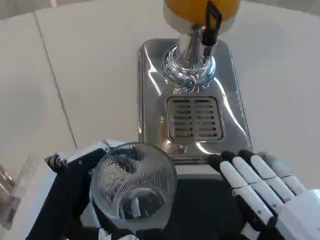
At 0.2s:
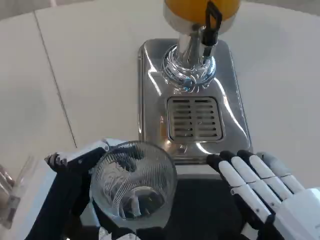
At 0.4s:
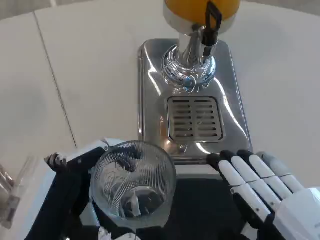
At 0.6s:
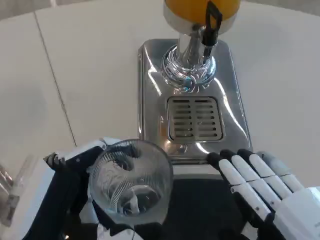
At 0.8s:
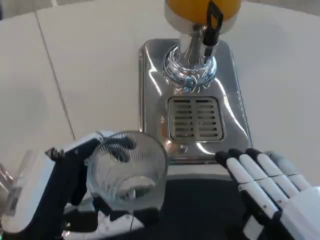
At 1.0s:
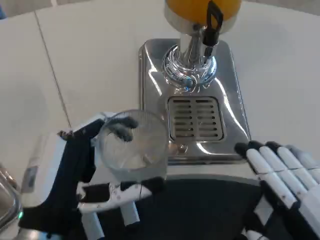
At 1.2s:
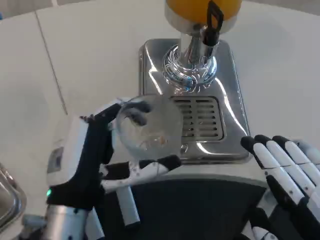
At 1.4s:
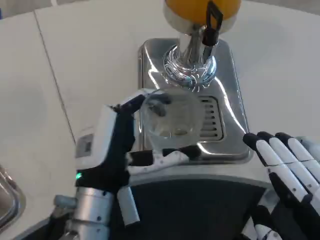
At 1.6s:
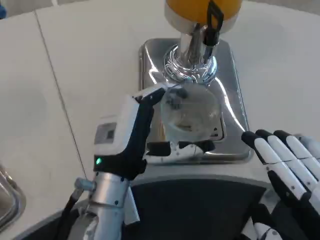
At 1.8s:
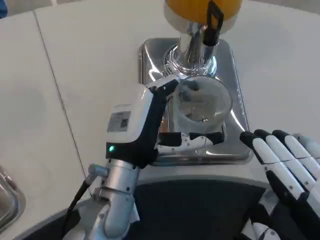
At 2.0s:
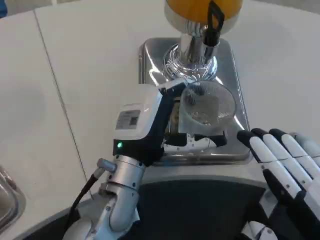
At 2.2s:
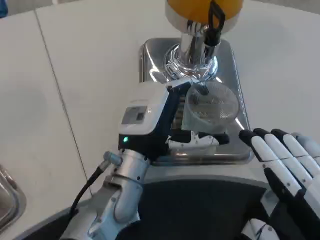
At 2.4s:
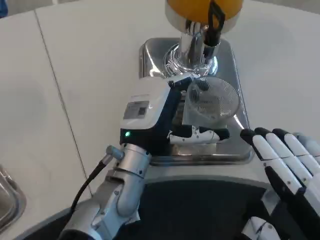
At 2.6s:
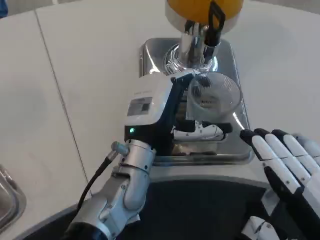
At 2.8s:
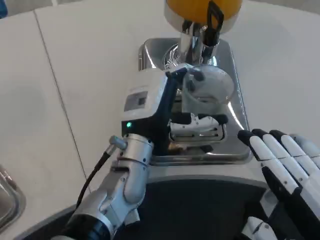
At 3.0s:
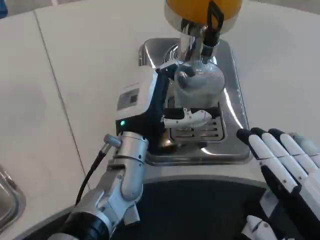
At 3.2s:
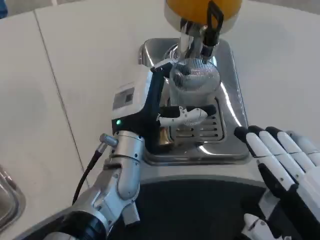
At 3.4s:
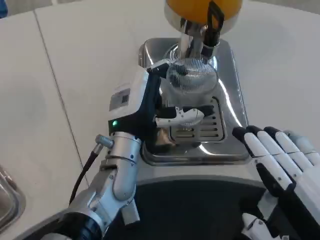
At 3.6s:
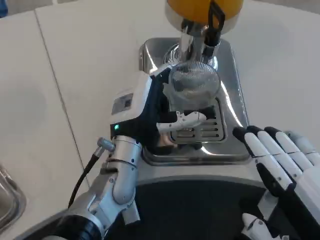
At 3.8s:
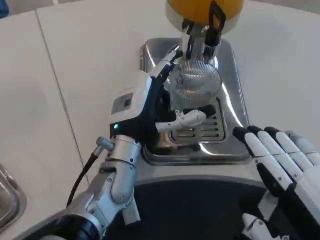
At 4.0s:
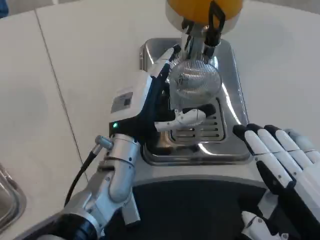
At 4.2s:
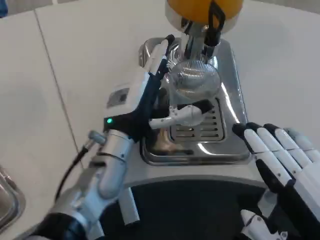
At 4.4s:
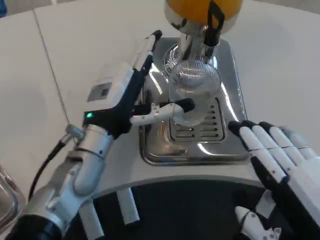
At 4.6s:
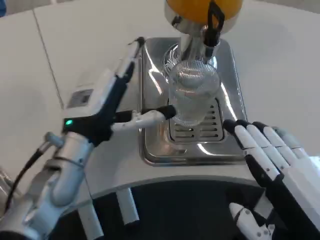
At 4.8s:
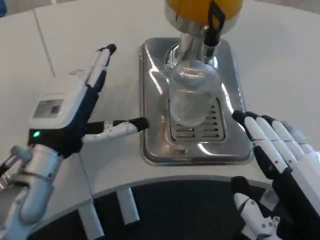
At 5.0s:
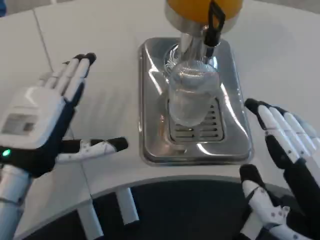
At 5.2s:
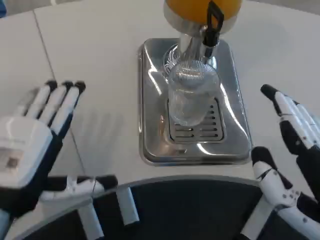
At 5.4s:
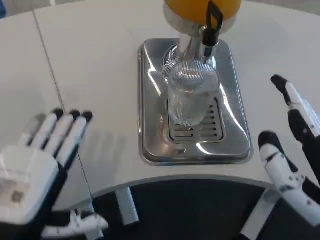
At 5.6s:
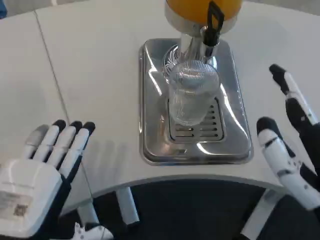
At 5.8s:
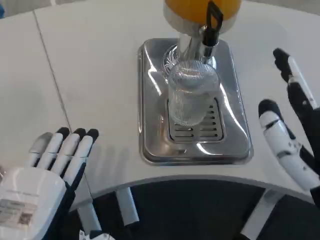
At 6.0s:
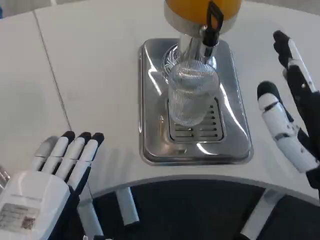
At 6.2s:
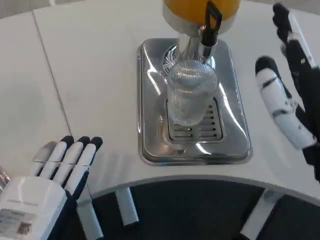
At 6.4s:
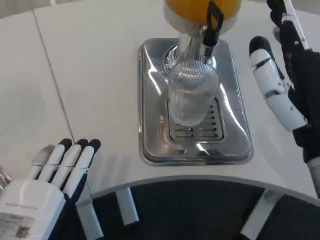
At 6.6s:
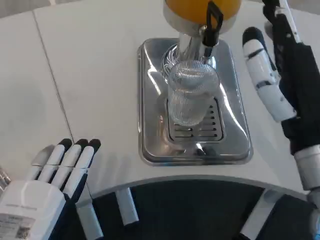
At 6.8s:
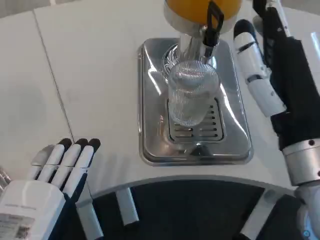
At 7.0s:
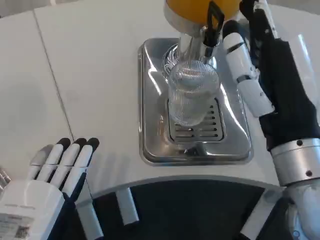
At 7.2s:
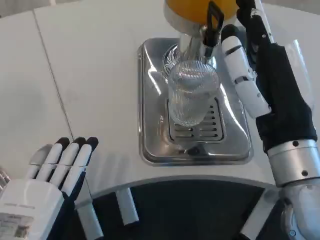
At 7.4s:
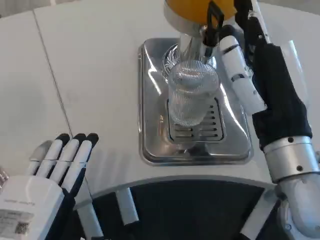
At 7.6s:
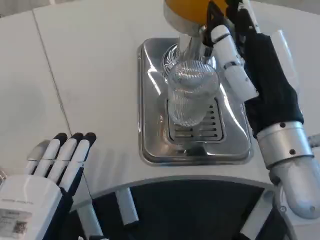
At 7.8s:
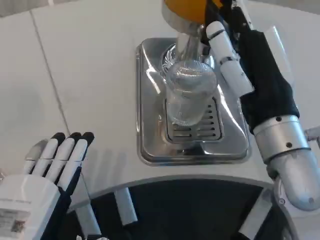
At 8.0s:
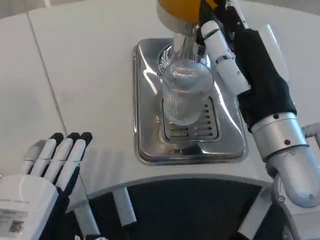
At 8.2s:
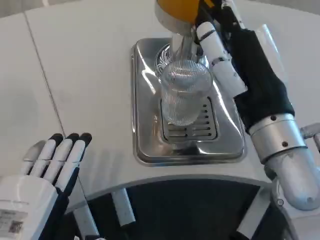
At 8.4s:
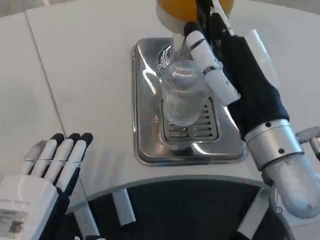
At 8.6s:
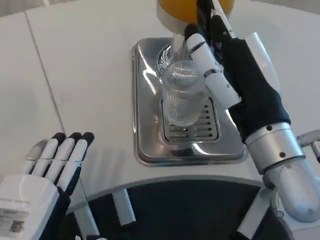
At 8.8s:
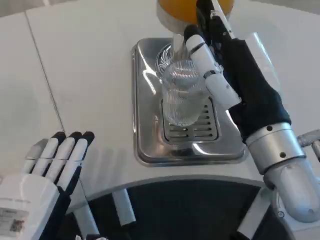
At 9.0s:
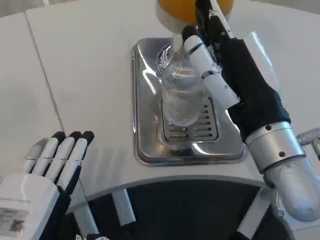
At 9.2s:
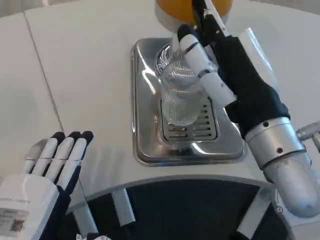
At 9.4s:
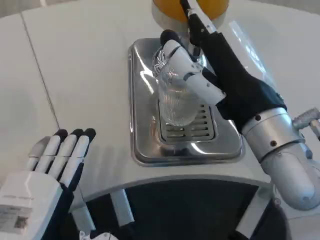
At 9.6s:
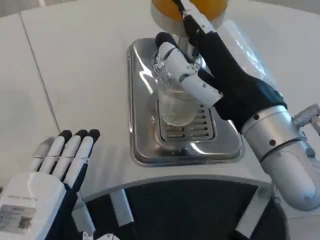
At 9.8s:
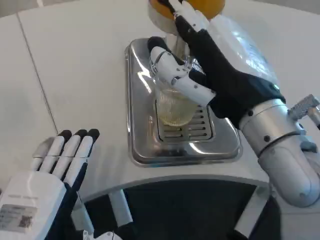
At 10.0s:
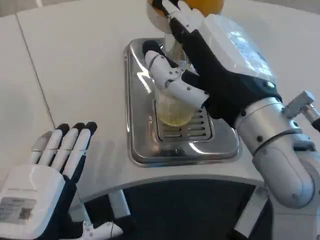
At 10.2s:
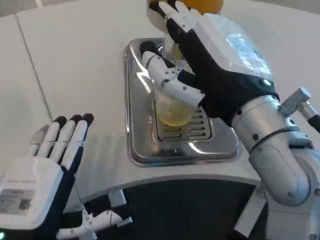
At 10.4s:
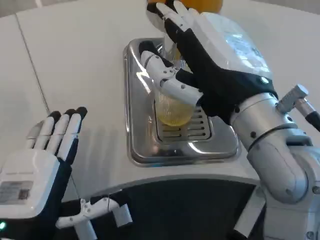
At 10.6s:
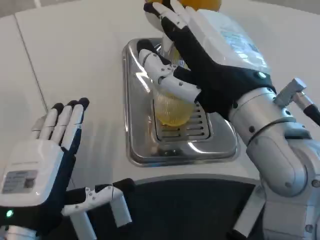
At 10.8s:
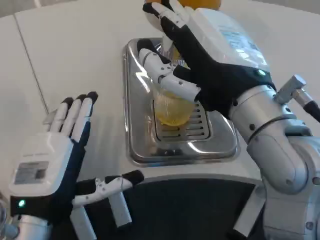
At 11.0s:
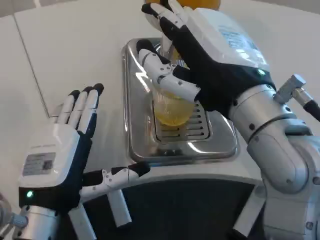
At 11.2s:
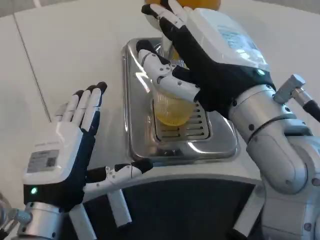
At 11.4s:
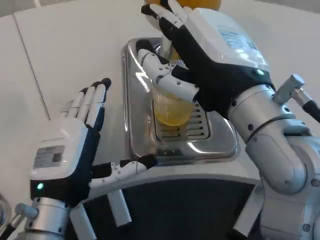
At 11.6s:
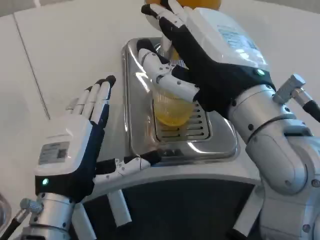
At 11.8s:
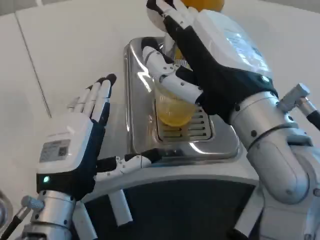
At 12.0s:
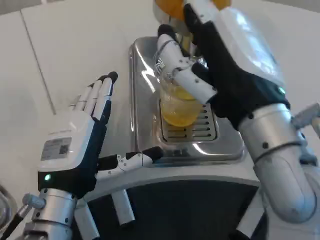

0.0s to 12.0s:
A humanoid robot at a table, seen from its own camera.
Task of the whole recording: Grasp the cup under the faucet to collect the drink, then remove the cup.
0.0s to 1.6s: The left hand goes some 15 cm forward and to the right.
1.6s to 3.0s: The left hand shifts roughly 5 cm forward.
3.0s to 4.4s: The left hand travels to the left by some 5 cm.
4.4s to 6.0s: The right hand is displaced forward by roughly 5 cm; the left hand travels backward by approximately 20 cm.
6.0s to 7.6s: The right hand travels forward and to the left by about 10 cm.
9.0s to 10.4s: The right hand changes place by roughly 5 cm.
10.4s to 12.0s: The left hand travels forward by approximately 5 cm.

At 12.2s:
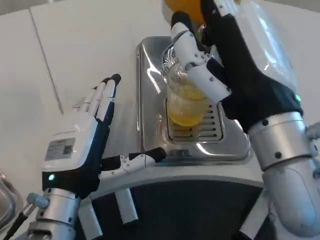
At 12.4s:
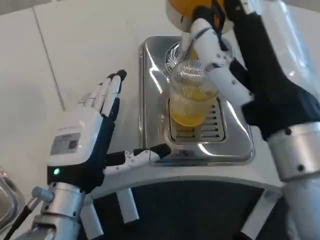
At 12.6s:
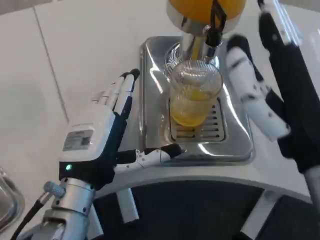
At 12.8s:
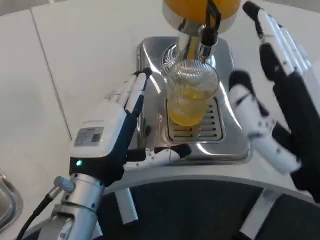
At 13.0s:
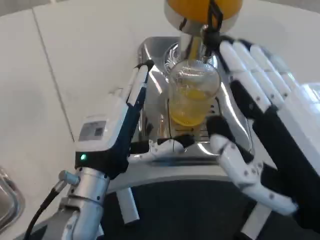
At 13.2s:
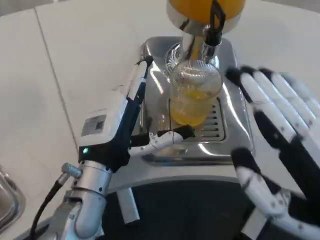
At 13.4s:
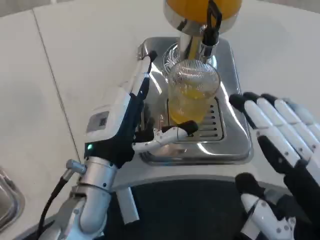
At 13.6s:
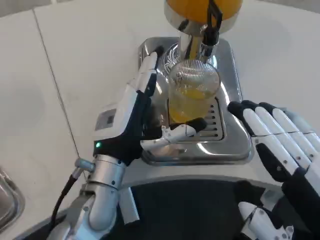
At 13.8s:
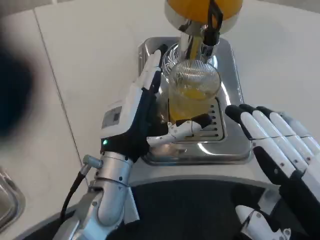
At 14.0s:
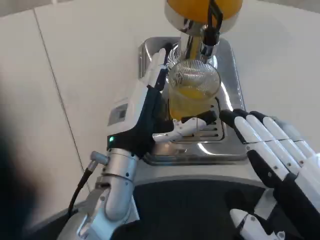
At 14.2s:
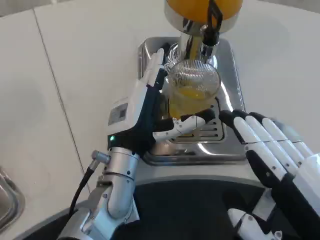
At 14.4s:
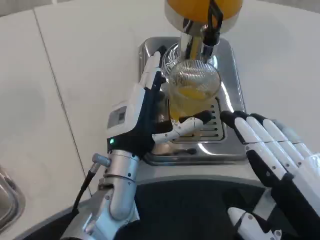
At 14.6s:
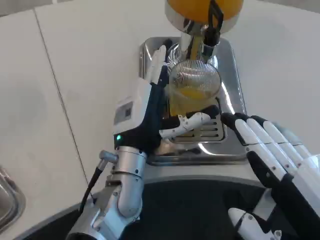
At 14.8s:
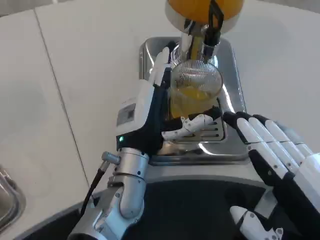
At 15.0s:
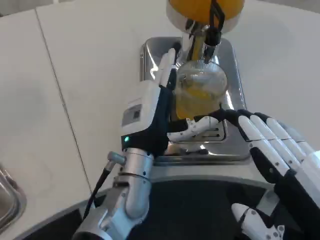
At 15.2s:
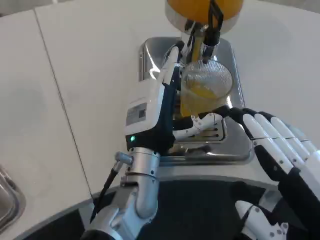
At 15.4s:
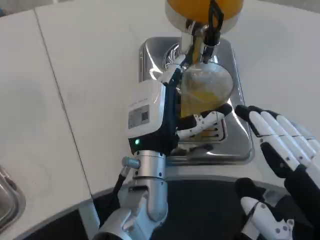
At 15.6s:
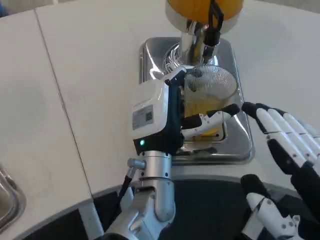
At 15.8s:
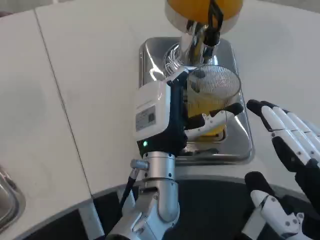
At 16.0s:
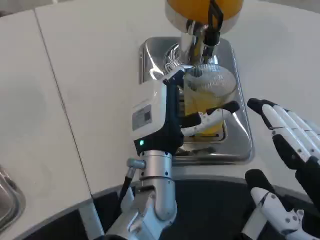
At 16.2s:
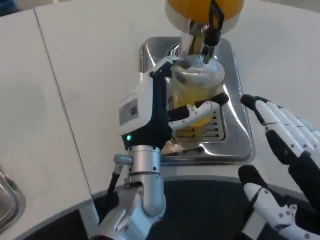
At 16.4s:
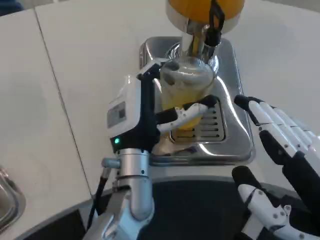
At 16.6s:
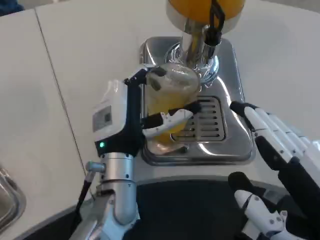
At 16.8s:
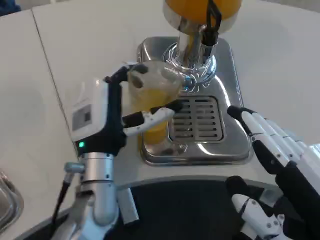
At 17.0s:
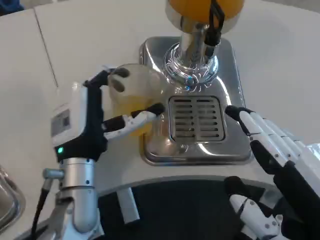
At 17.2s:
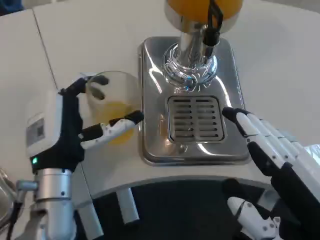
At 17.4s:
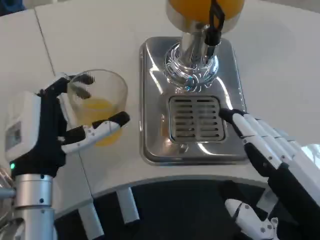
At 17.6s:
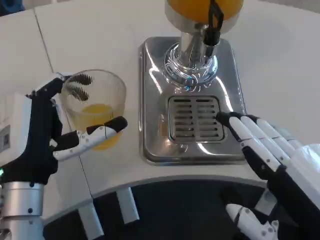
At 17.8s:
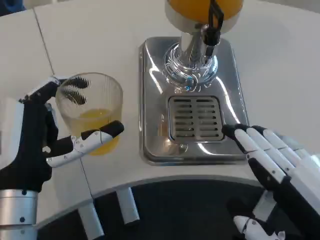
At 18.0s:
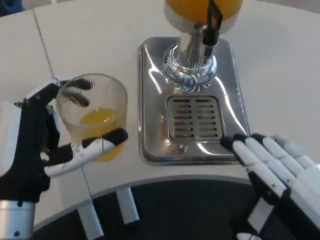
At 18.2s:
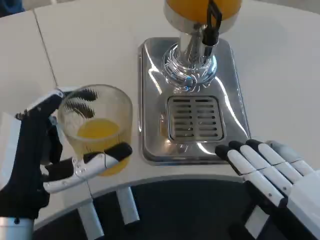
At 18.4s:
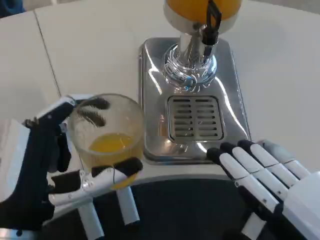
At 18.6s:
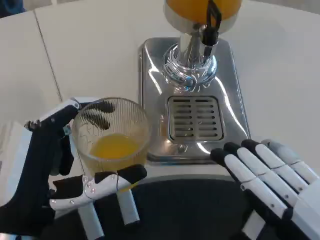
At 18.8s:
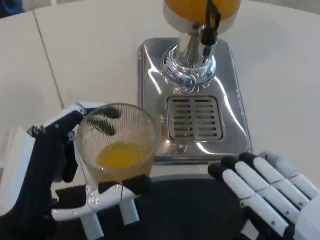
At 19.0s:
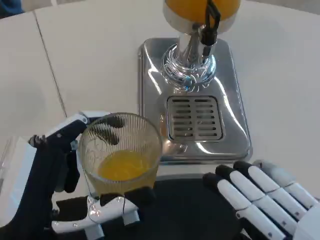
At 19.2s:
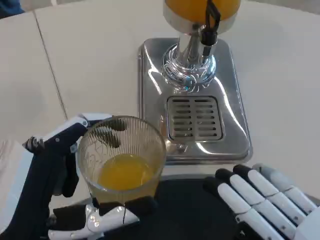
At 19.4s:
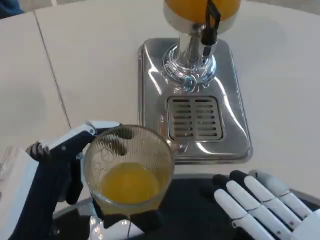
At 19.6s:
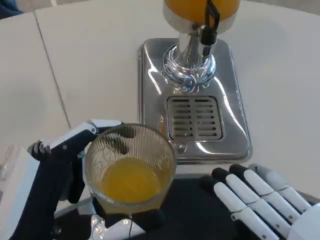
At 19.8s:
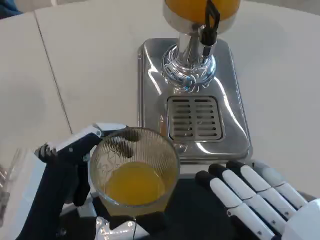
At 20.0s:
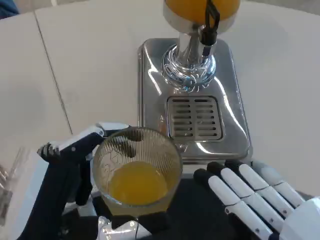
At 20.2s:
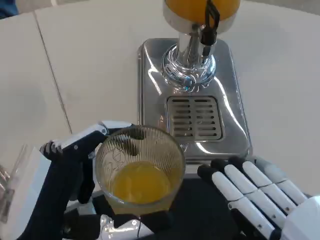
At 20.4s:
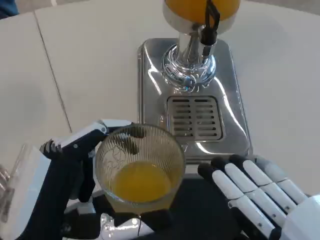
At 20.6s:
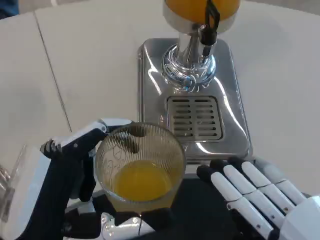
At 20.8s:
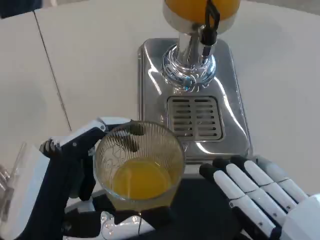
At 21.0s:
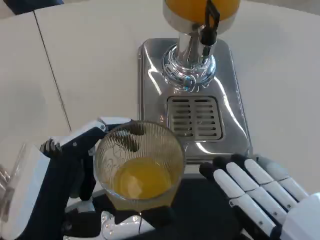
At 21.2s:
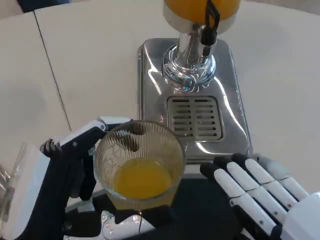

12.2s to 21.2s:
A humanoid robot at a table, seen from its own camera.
Task of the whole recording: Grasp the cup under the faucet to collect the drink, then remove the cup.
12.2s to 13.8s: The left hand shifts about 10 cm forward and to the right; the right hand shifts some 15 cm backward, to the right and downward.
13.8s to 15.2s: The left hand shifts roughly 5 cm to the right.
16.6s to 18.2s: The left hand shifts approximately 15 cm backward and to the left.
18.2s to 19.8s: The left hand heads backward, covering approximately 5 cm.
19.8s to 21.2s: The two hands keep their place.

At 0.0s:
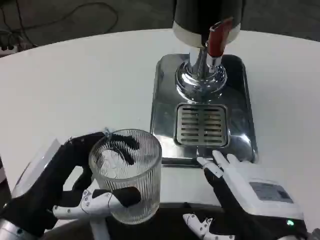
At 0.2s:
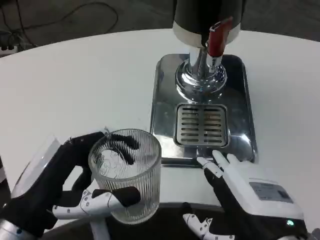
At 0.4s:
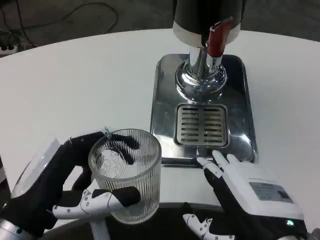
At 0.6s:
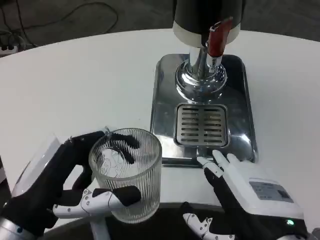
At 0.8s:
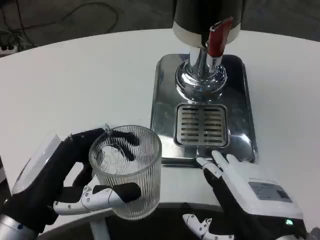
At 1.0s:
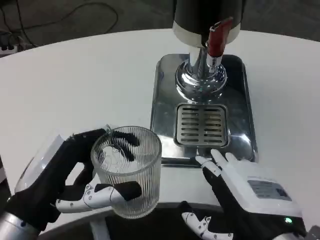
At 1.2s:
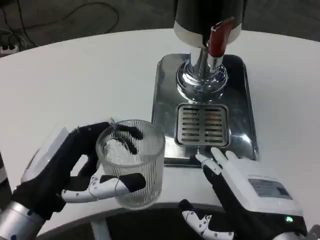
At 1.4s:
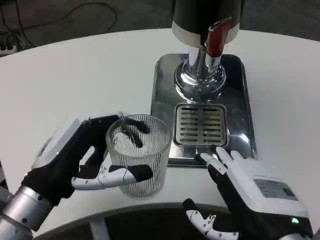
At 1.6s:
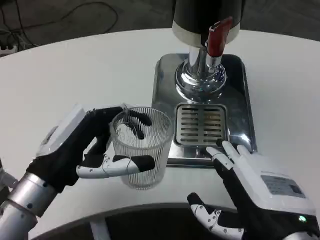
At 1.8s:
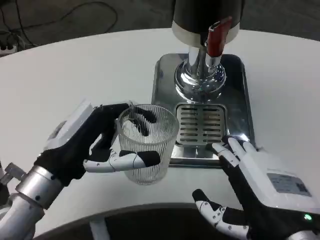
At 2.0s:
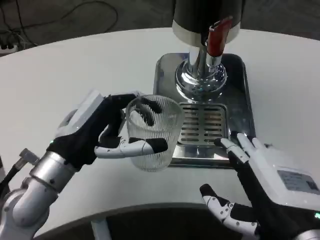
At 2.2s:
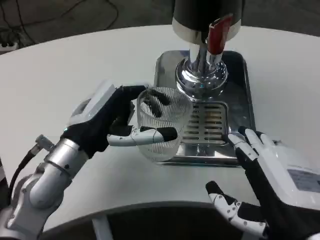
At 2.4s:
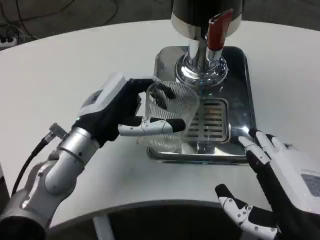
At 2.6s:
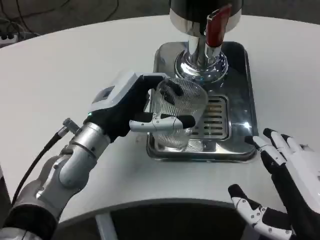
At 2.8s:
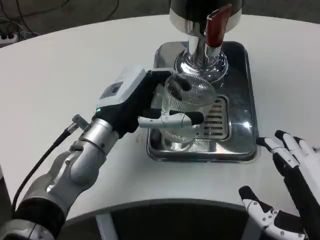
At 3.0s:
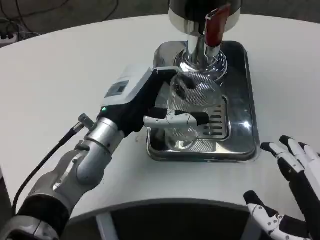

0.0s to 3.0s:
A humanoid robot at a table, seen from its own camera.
Task of the whole recording: Grasp the cup under the faucet to collect the drink, then remove the cup.
0.0s to 1.6s: The left hand is displaced forward by about 5 cm.
1.6s to 3.0s: The right hand ends up approximately 5 cm from where it was, while the left hand is displaced forward and to the right by roughly 10 cm.
